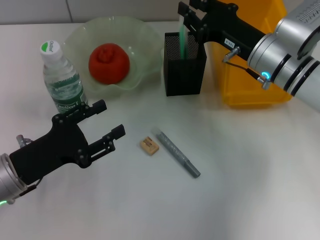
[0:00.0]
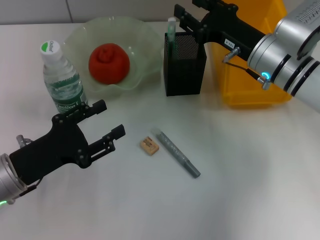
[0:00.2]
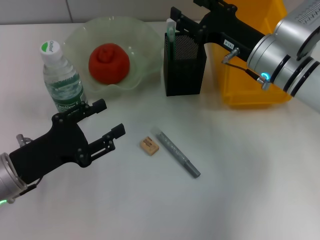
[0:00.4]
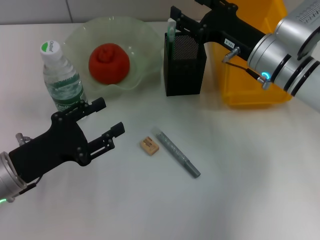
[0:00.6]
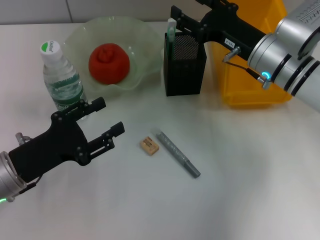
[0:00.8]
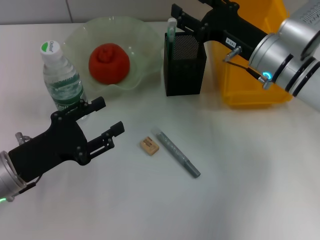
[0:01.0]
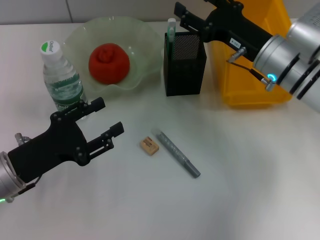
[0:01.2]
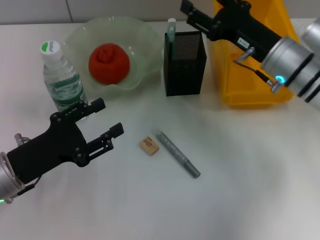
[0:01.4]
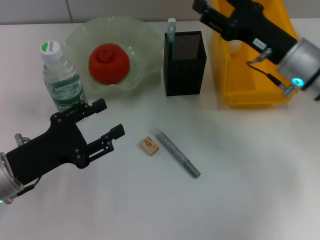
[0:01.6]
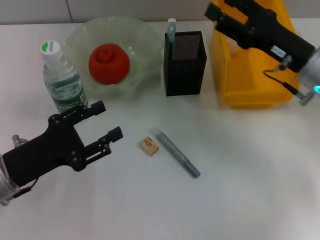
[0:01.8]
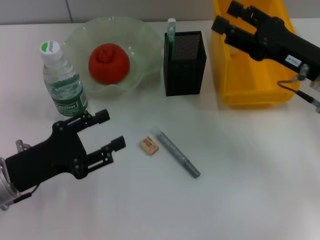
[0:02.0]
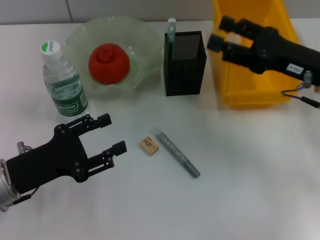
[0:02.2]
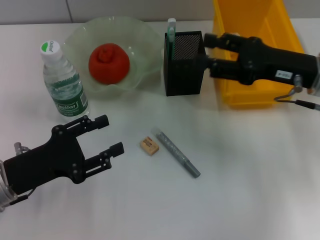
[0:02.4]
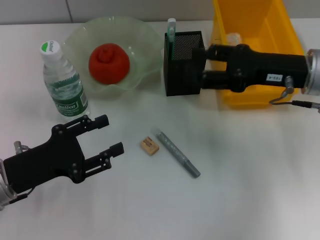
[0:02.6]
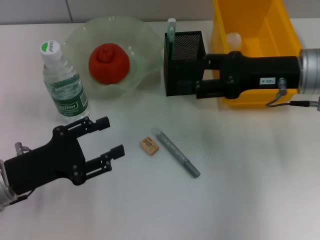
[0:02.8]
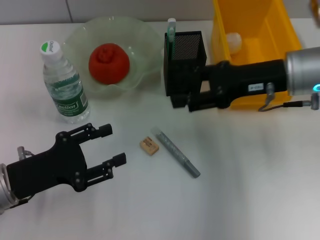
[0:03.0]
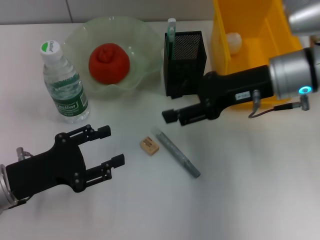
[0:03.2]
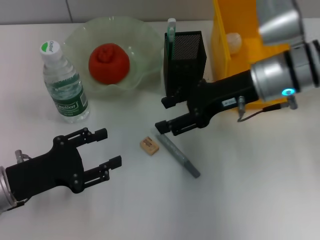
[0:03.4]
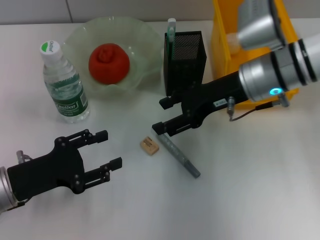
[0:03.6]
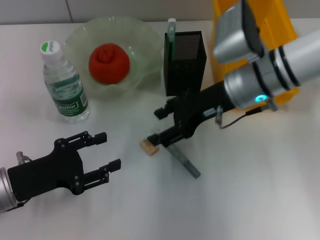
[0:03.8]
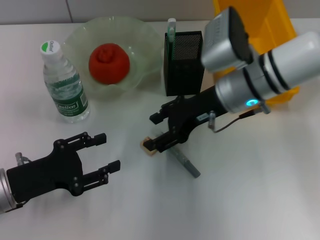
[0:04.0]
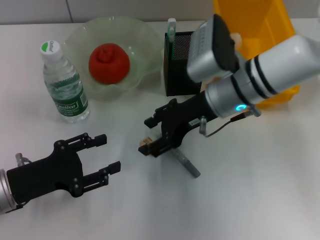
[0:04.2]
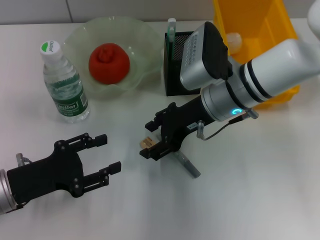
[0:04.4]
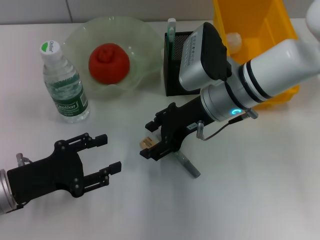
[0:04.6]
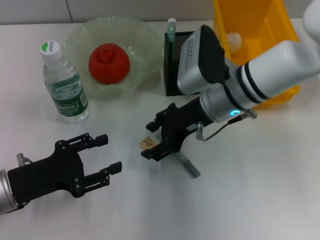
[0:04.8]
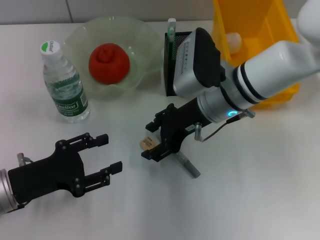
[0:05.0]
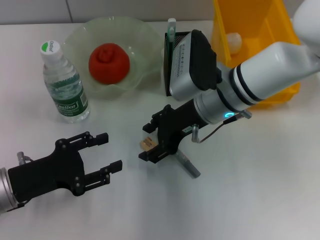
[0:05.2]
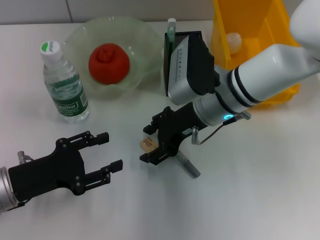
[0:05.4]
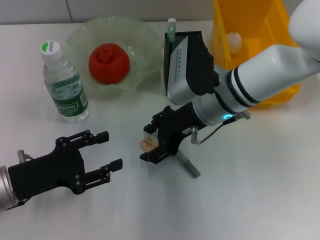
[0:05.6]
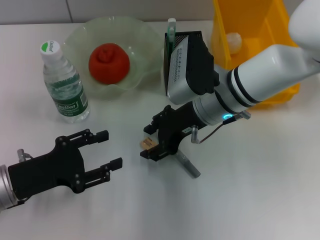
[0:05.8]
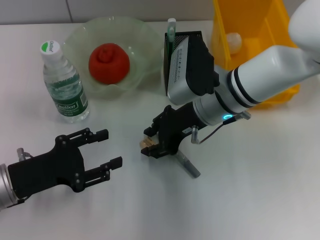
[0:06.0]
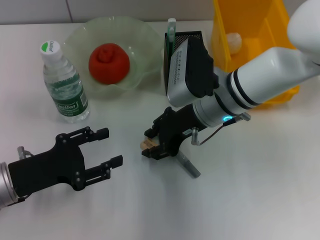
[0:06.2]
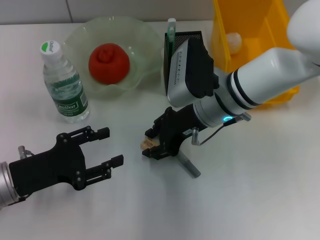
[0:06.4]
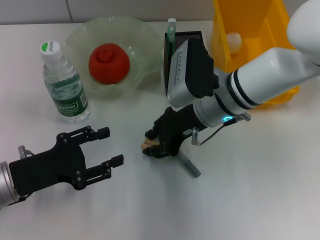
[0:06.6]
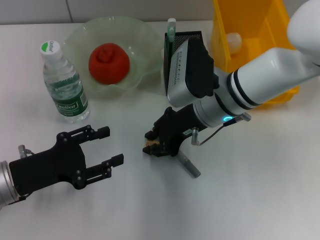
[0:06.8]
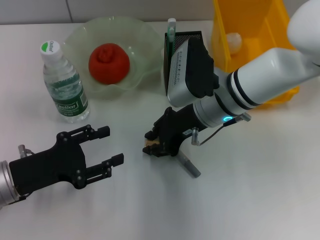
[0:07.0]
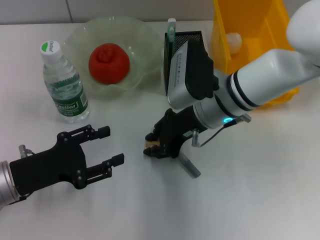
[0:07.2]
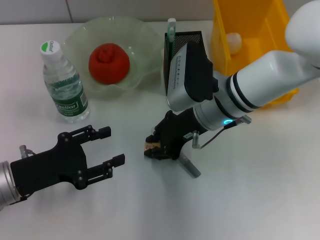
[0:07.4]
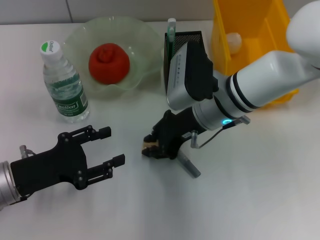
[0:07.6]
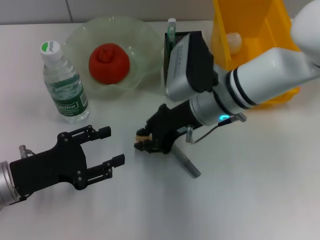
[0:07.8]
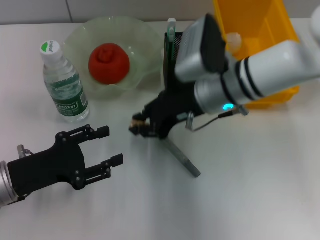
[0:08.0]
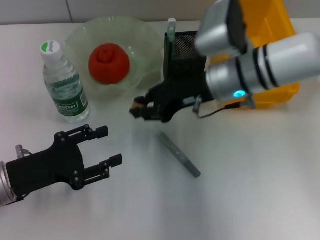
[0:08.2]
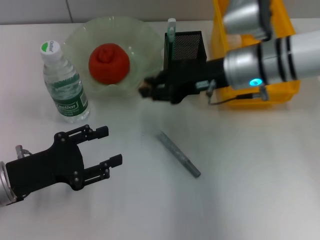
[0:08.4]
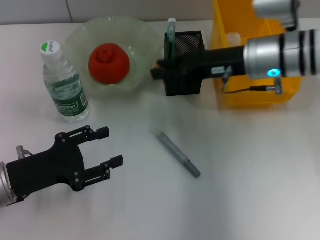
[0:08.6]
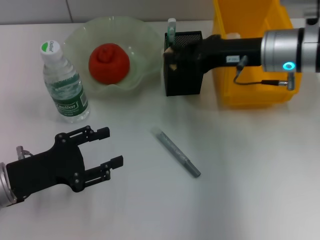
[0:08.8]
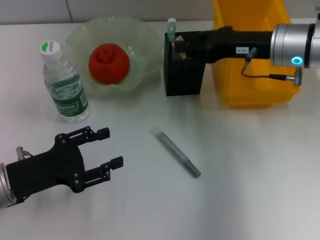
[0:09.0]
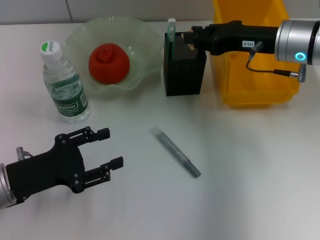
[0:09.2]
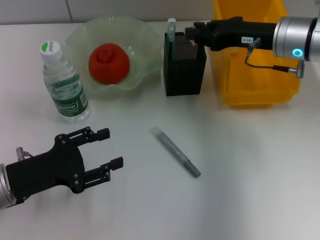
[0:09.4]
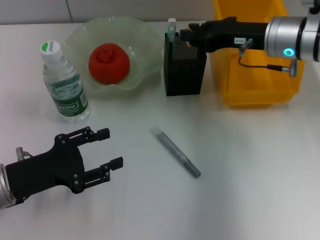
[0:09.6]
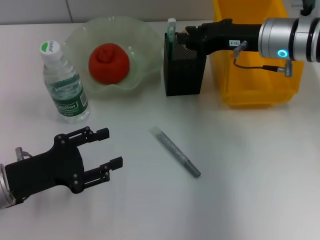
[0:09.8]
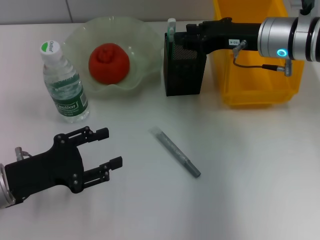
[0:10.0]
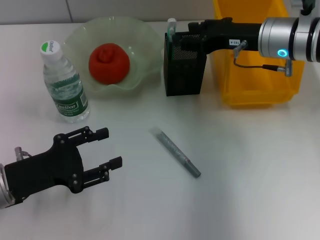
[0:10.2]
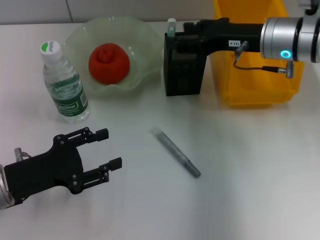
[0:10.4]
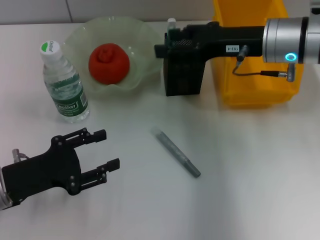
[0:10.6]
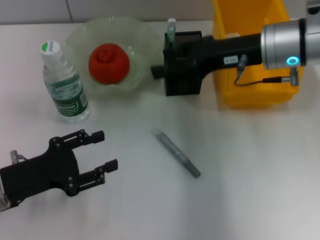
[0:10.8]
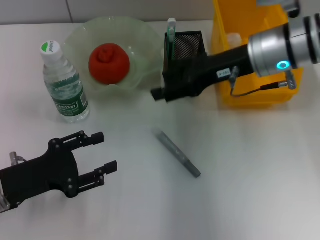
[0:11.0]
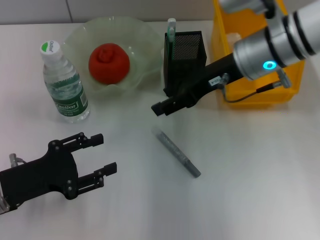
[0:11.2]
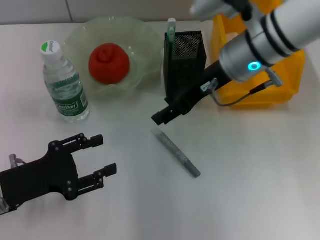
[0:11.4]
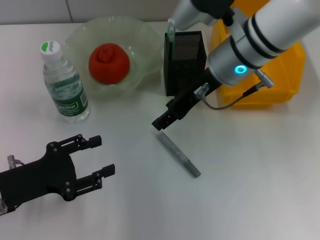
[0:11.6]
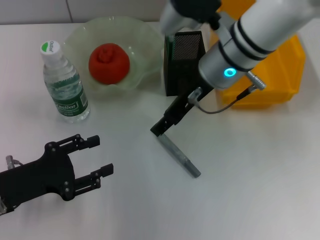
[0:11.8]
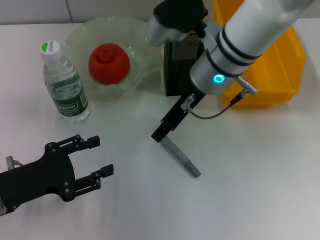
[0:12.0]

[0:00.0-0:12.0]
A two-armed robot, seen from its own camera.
Step, 0:00.4 to 0:07.4: Grab the eraser with the right hand.
Step, 0:07.6 to 0:09.8: Put the eraser into the pen holder with the right hand.
0:00.0 to 0:01.6: The right gripper opens its fingers.
0:03.0 to 0:04.4: The right gripper is displaced to the left by roughly 10 cm.
0:04.4 to 0:06.0: There are only small adjustments of the grippers.
0:06.0 to 0:07.6: The right gripper closes up.
0:07.6 to 0:09.0: The right gripper shifts some 10 cm to the right and upward.
0:09.0 to 0:10.4: The right gripper opens.
0:10.4 to 0:12.0: The right gripper is displaced to the left by about 10 cm.

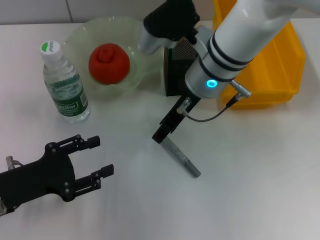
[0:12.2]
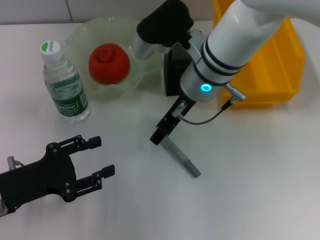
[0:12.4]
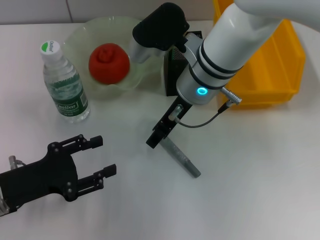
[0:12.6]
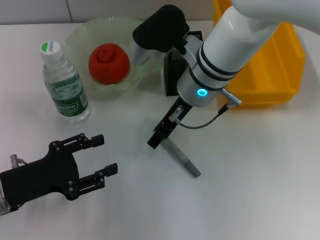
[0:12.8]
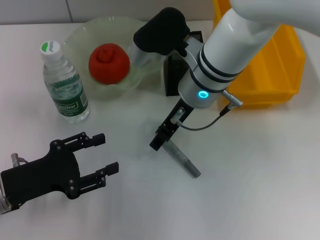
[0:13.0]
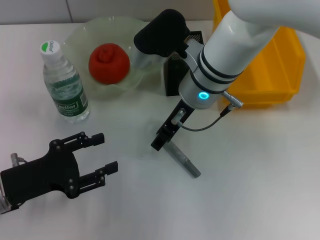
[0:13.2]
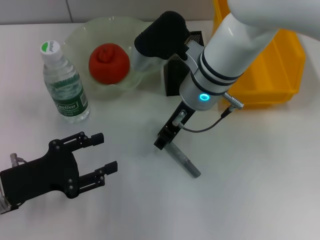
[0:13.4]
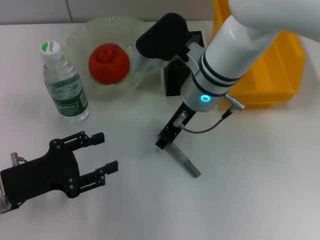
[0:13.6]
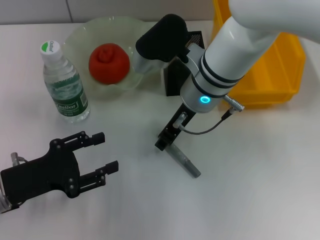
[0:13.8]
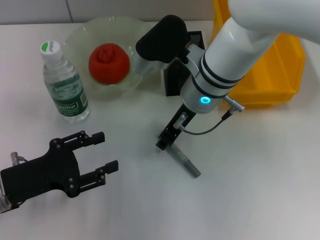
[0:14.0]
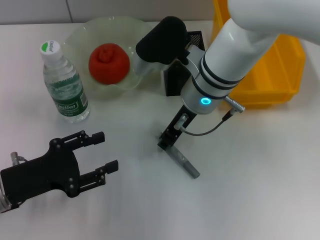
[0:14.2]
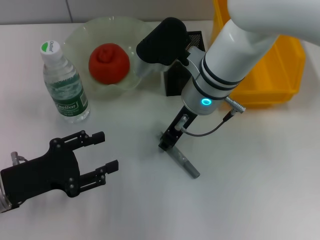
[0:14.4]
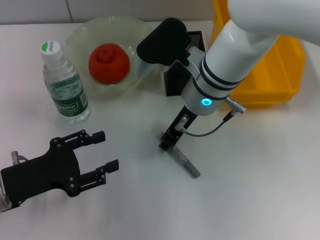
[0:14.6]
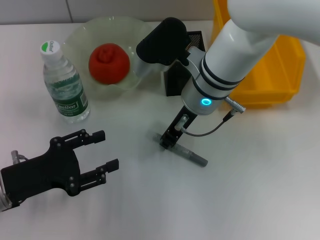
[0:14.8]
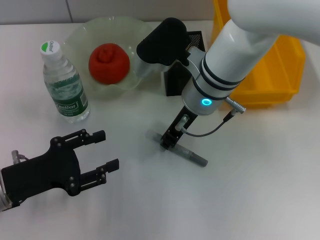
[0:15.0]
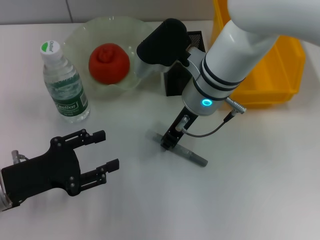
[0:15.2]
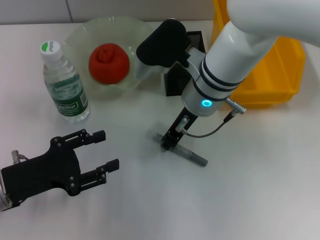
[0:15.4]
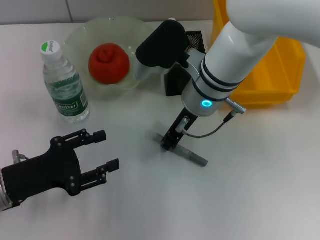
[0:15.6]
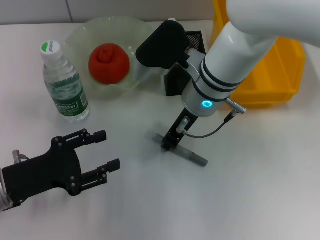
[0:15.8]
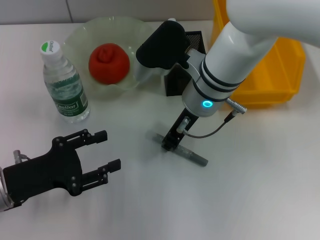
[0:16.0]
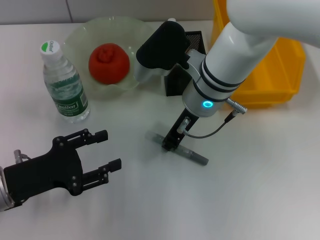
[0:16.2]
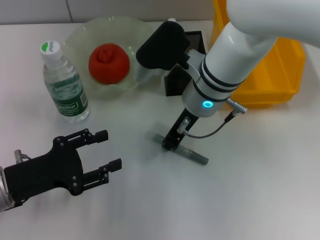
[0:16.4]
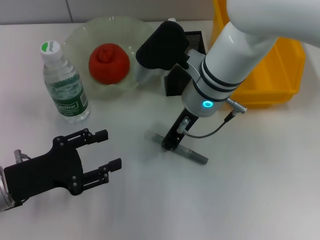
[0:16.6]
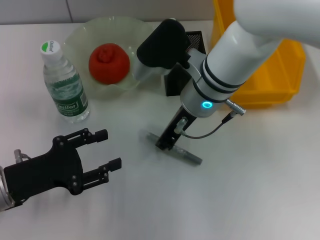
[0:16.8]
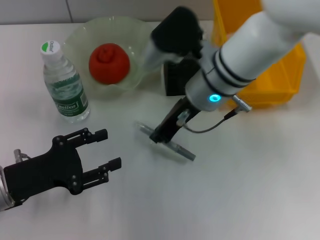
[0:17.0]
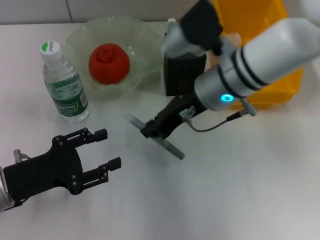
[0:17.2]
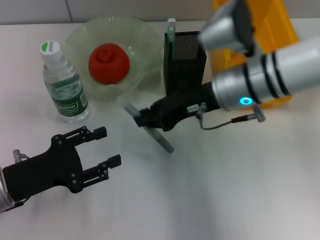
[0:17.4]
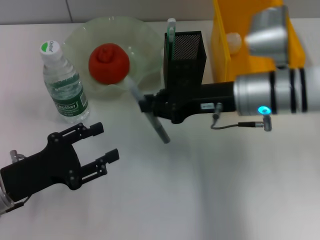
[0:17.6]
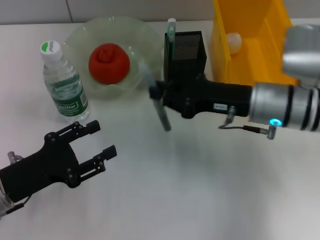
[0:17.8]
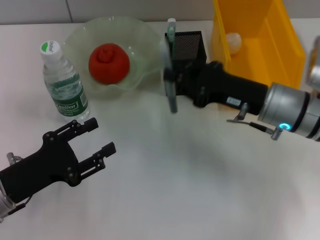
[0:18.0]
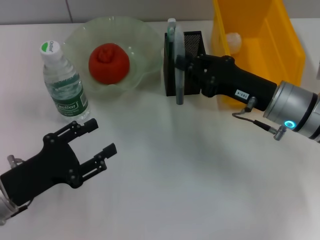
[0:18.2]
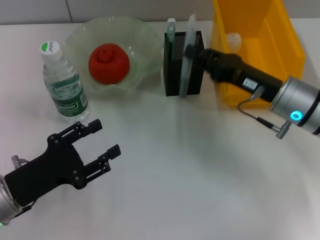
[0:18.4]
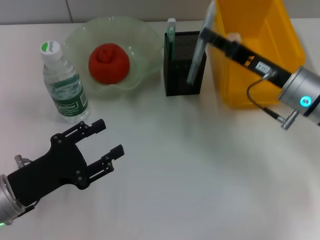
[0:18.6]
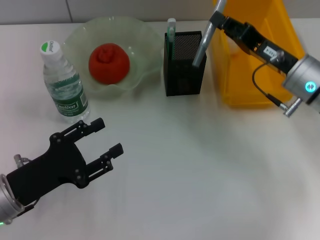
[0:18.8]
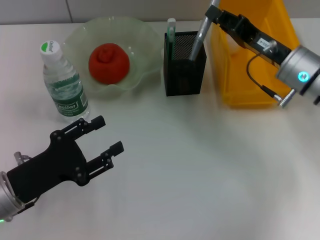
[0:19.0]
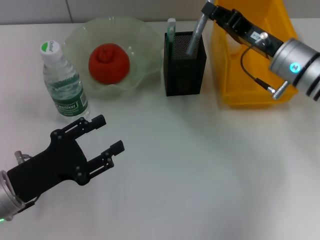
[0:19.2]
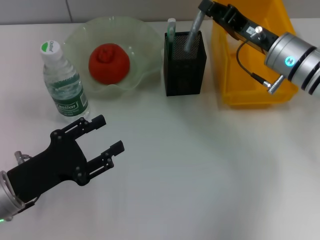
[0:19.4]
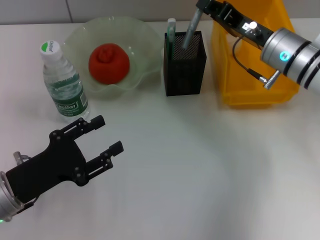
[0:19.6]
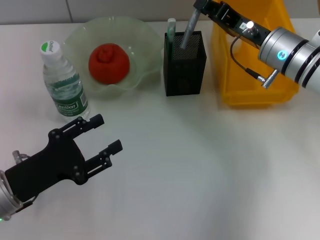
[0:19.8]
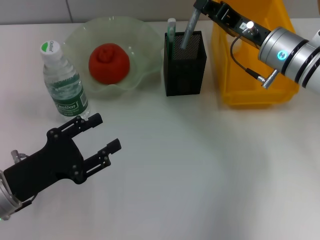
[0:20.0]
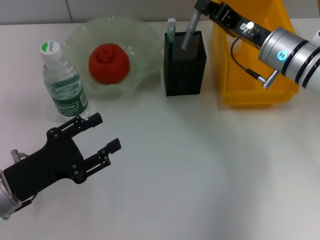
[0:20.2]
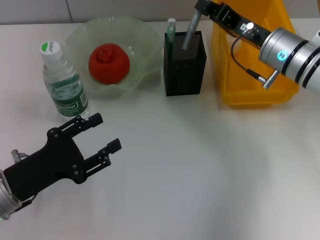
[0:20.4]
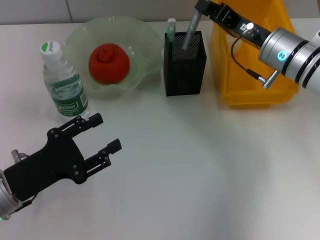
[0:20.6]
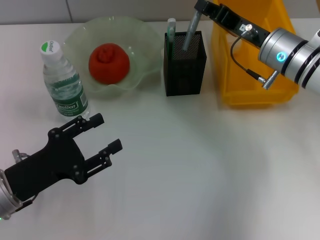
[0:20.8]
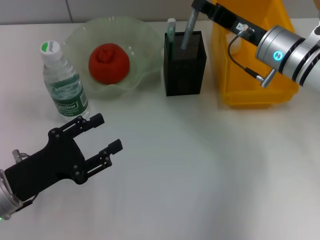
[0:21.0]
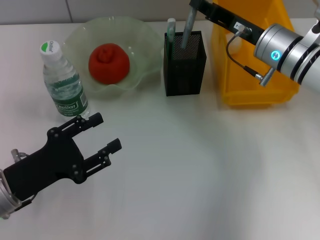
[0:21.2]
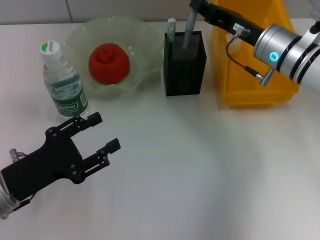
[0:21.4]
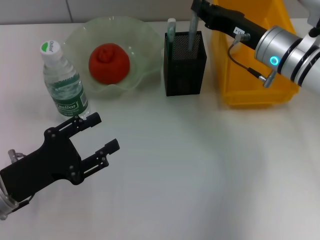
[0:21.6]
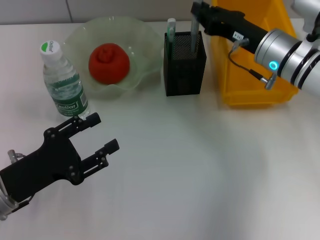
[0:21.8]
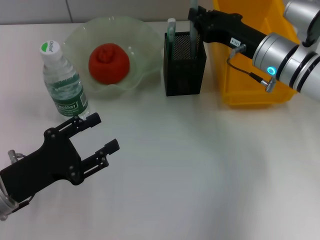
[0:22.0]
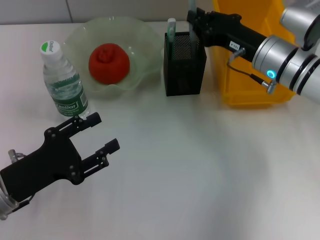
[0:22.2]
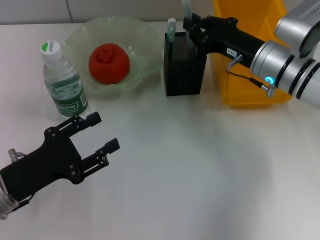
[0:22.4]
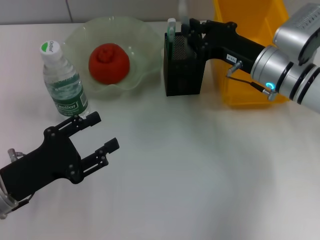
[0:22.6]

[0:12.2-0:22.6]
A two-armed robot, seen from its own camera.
Step, 0:12.2 to 0:16.4: Grab the gray glue with the right hand.
0:12.2 to 0:13.6: The grippers make only small movements.
0:13.6 to 0:15.2: The right gripper closes its fingers.
0:15.2 to 0:16.6: The two grippers keep their place.
0:16.6 to 0:18.2: The right gripper heads to the right, covering some 15 cm.
0:18.2 to 0:19.6: The right gripper goes roughly 10 cm forward.
0:19.6 to 0:21.2: The grippers make only small movements.
